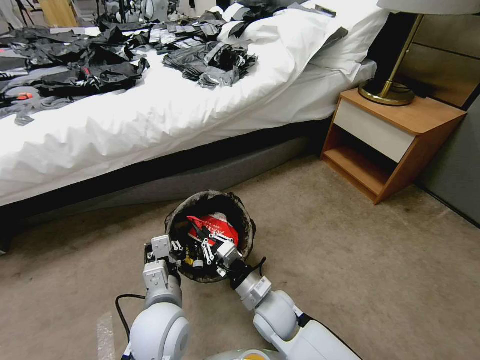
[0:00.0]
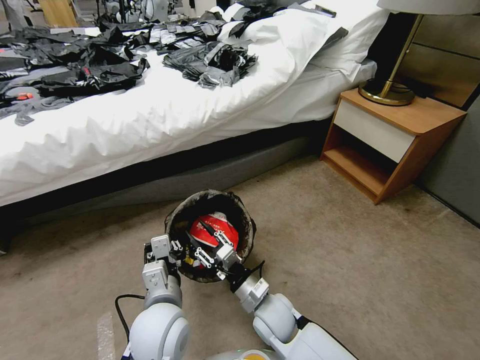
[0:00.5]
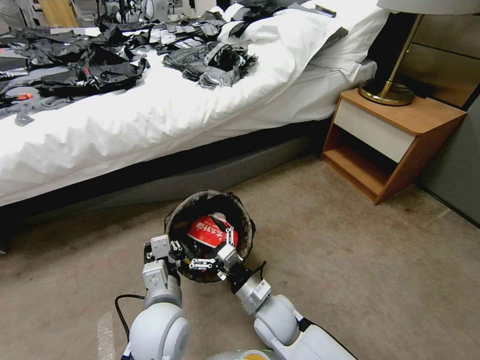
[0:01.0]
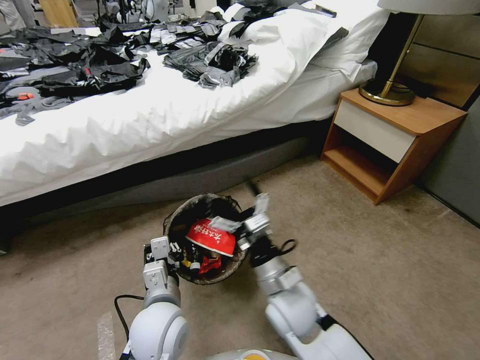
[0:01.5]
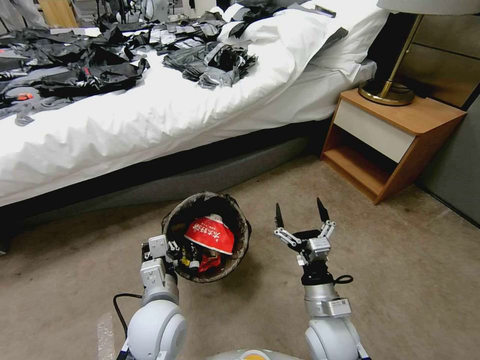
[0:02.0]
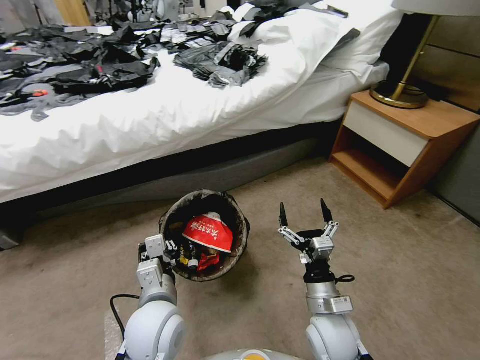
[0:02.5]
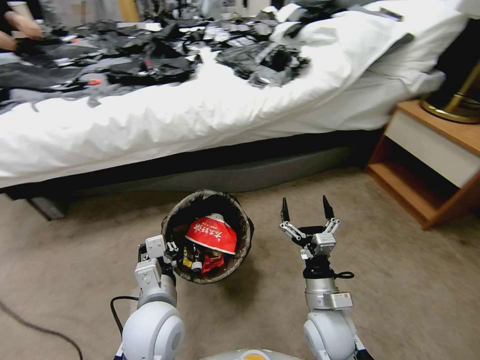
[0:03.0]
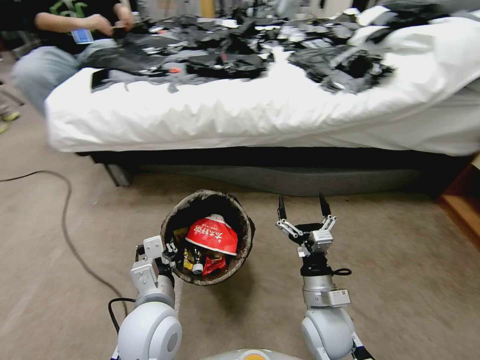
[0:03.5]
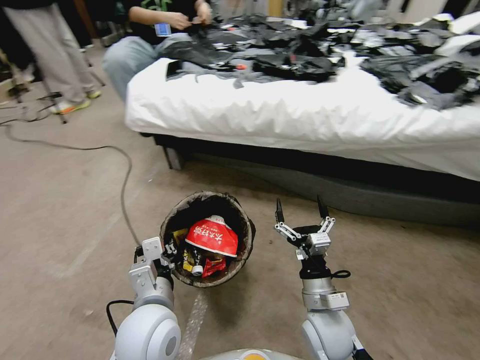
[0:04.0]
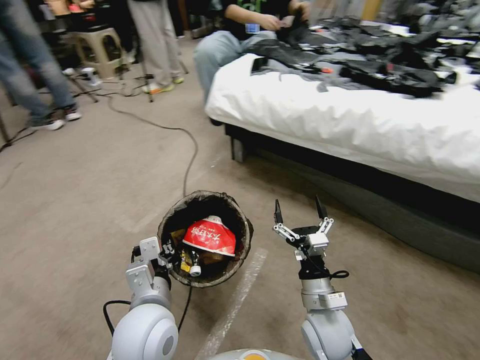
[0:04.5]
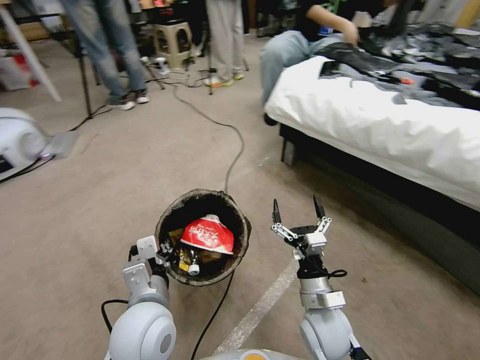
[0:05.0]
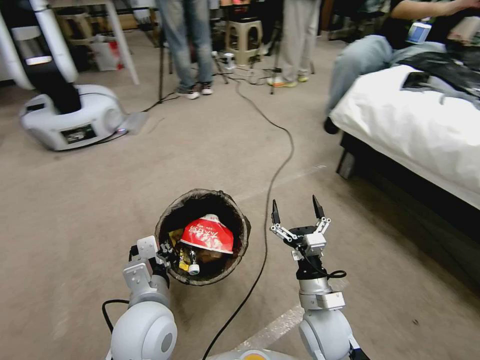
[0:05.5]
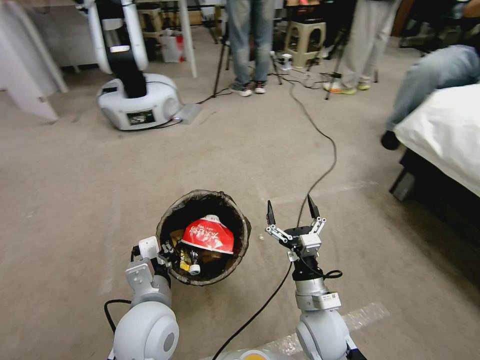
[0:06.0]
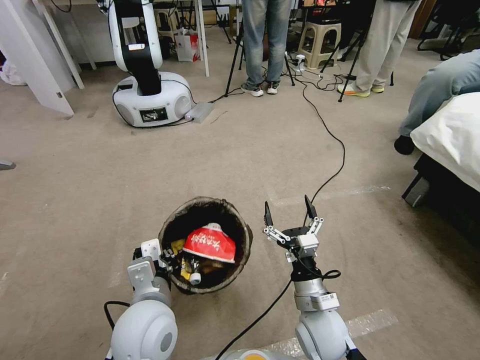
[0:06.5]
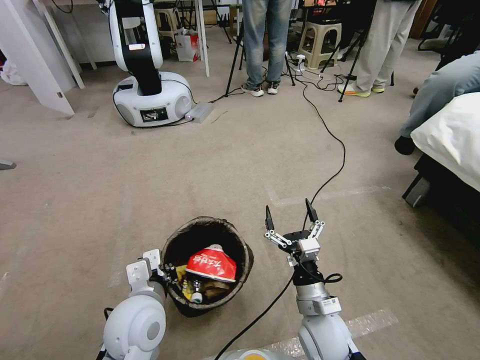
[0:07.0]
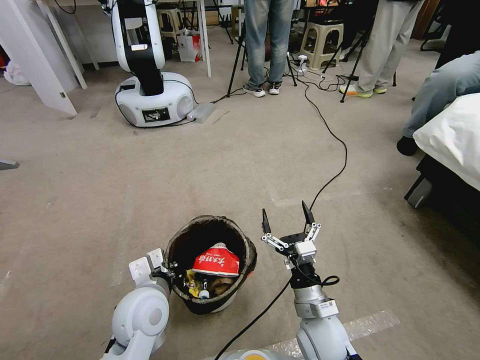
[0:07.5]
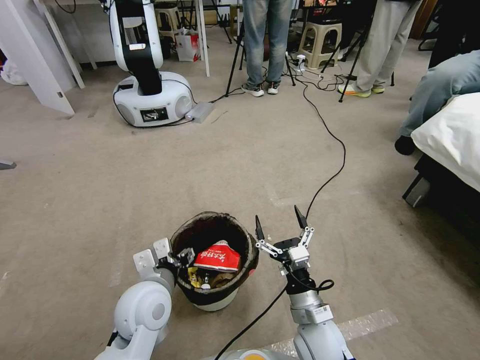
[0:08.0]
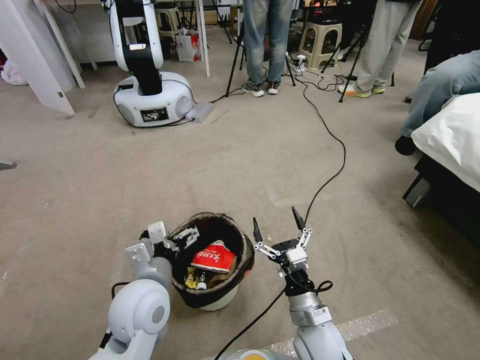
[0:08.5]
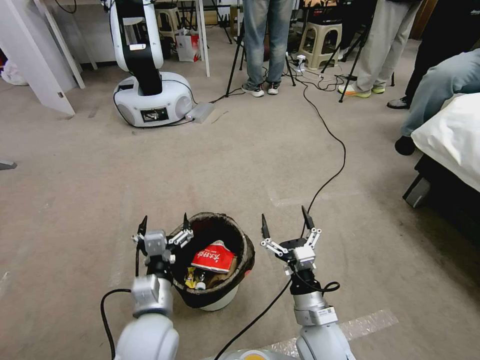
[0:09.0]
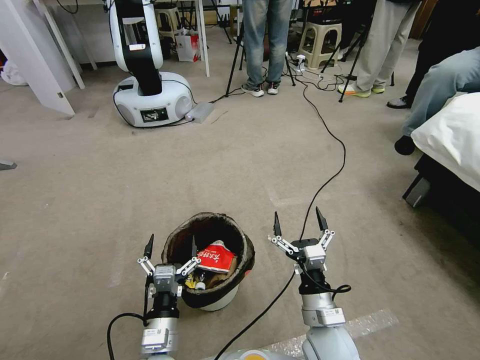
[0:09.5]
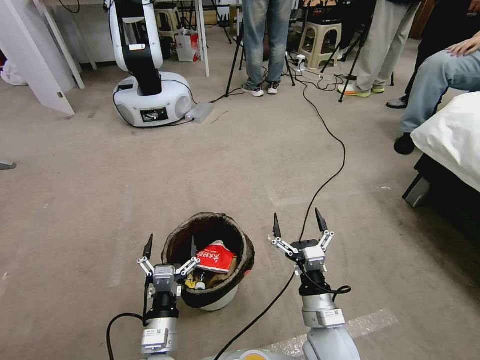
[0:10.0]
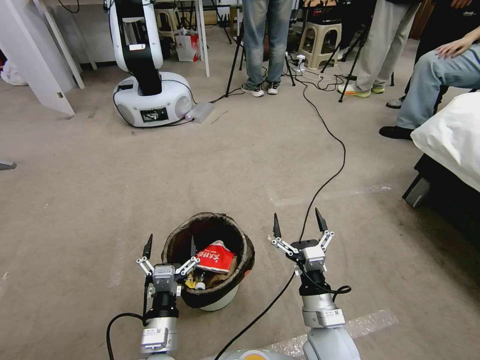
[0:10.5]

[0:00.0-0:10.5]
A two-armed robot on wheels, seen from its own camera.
Task of the whole recording: Pick up the trash bin, then pick up the garbage from the floor and place it into the trash bin.
0:00.0 to 0:02.0: The right gripper moves to the right, roughly 10 cm, travels upward and back again, some 10 cm each way, and opens up.
0:06.5 to 0:08.5: The left gripper opens.
0:08.5 to 0:10.5: The left gripper travels downward and backward by approximately 15 cm.

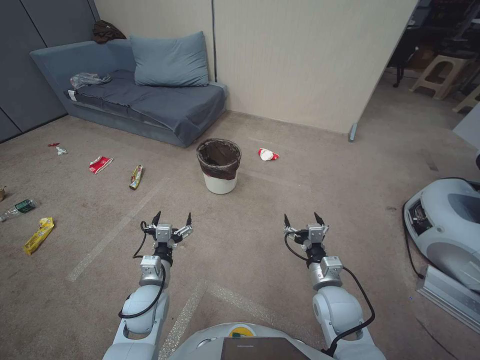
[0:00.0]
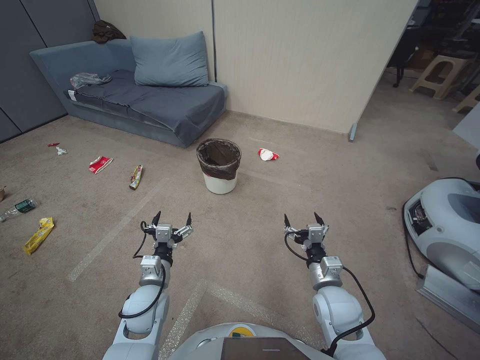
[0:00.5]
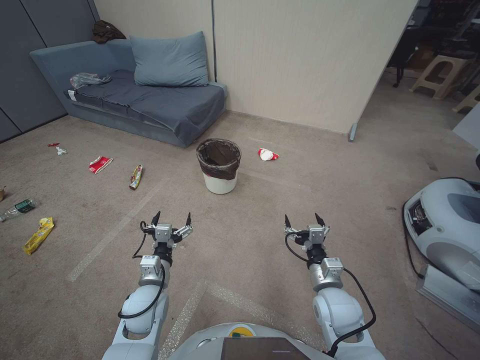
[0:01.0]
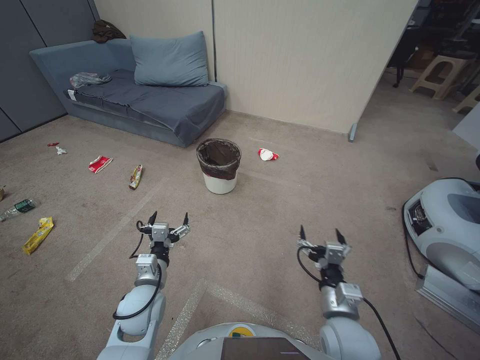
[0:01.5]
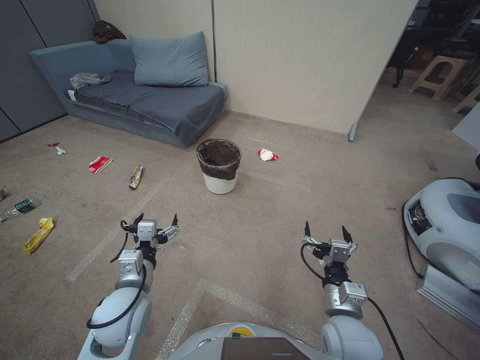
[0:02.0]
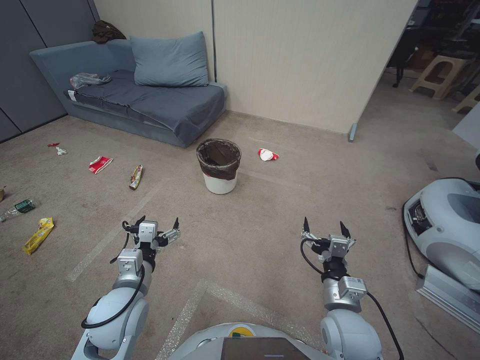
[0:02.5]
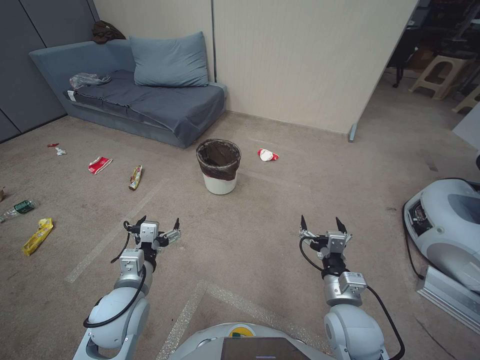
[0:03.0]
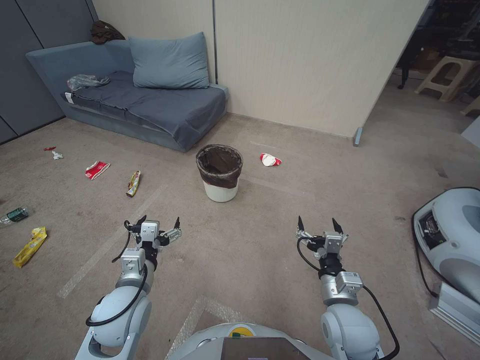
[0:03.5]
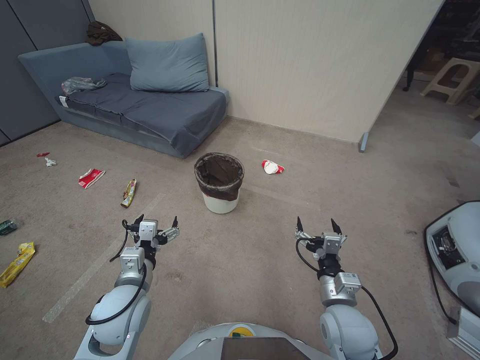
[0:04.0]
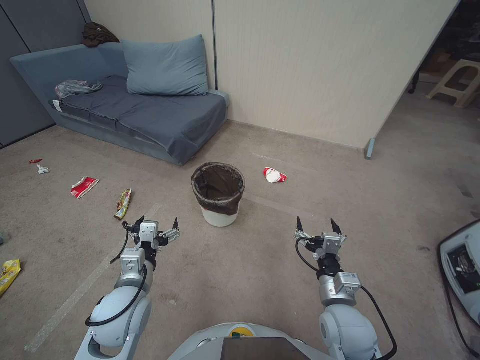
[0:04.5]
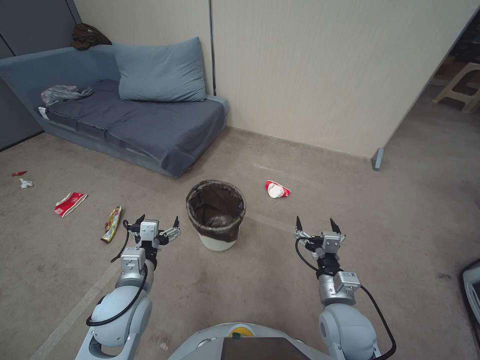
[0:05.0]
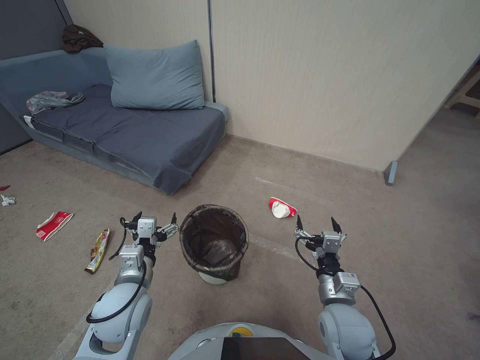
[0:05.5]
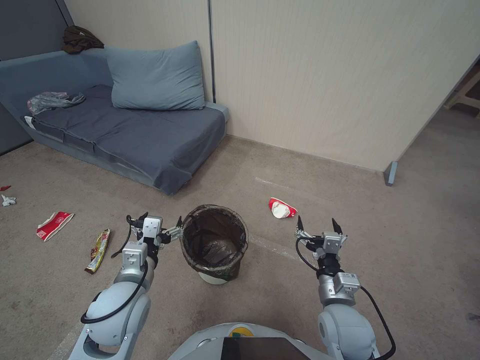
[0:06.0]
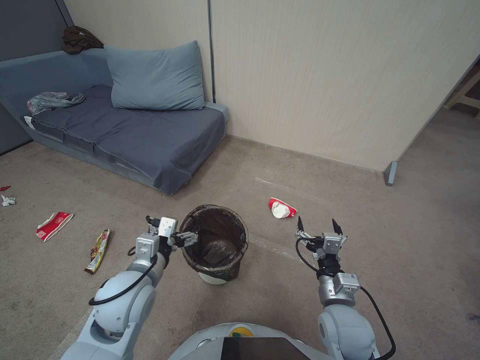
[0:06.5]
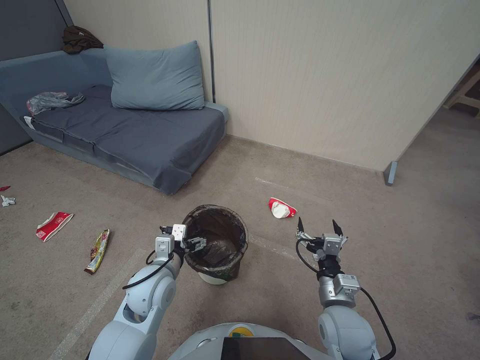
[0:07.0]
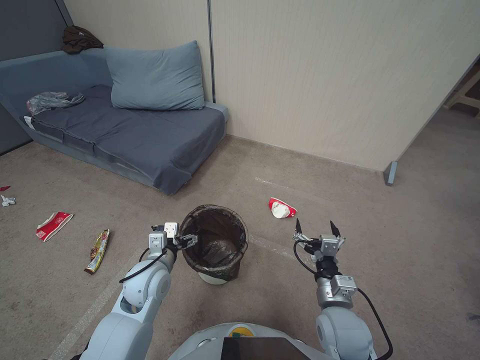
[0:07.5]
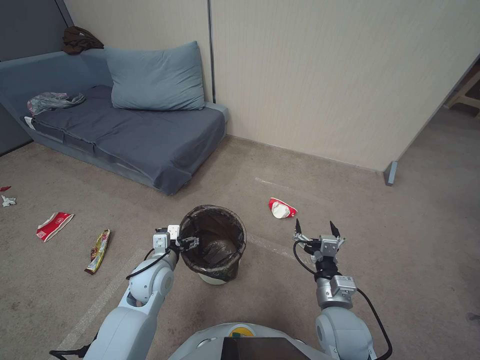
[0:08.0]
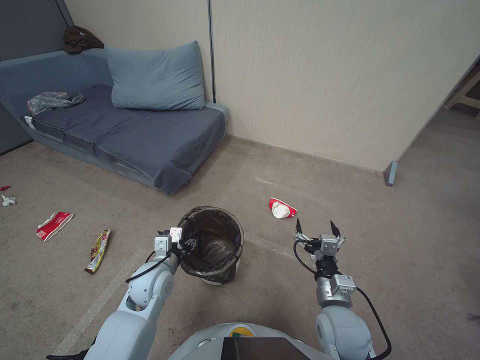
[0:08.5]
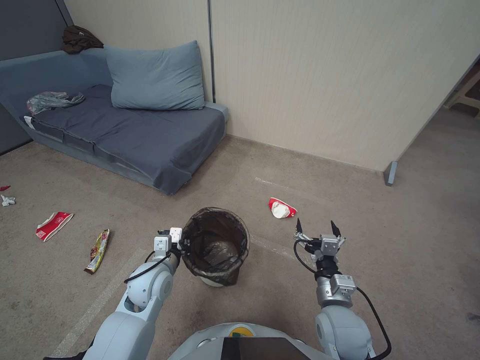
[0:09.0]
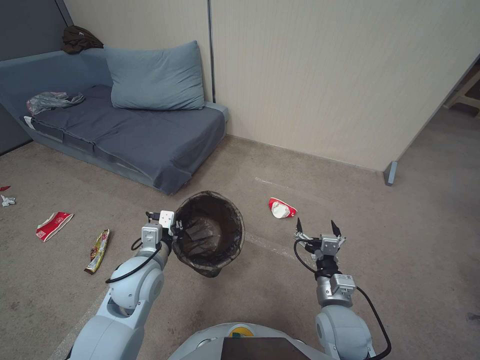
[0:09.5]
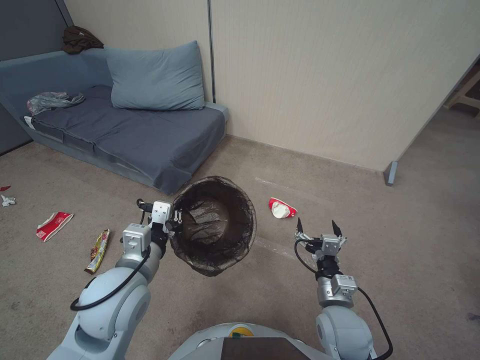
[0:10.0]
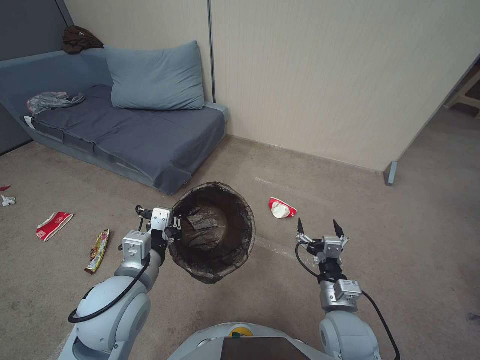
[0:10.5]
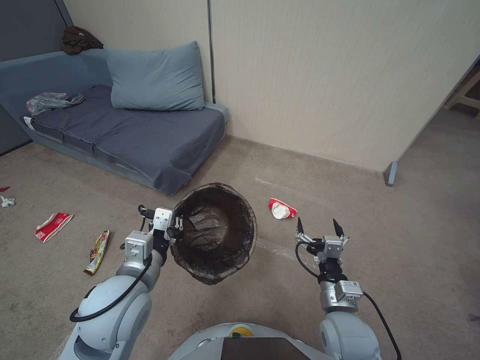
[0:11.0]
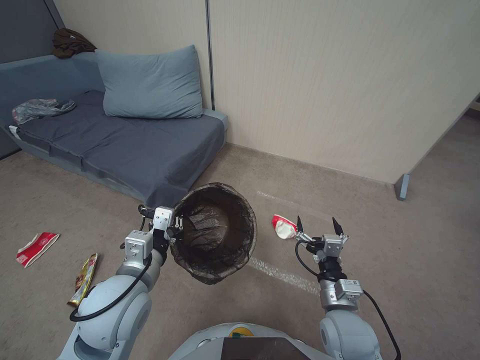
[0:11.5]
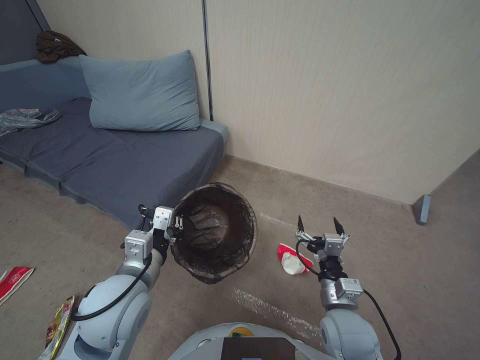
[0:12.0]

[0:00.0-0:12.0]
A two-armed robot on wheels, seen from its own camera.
Task of the whole recording: Pick up the trash bin, then pick up the garbage from the floor and place it into the trash bin.
0:02.0 to 0:04.0: The grippers make only small movements.
0:06.0 to 0:08.0: The left gripper is displaced forward and downward by some 10 cm.
0:08.0 to 0:10.0: The left gripper travels upward and backward by approximately 15 cm, and closes up.

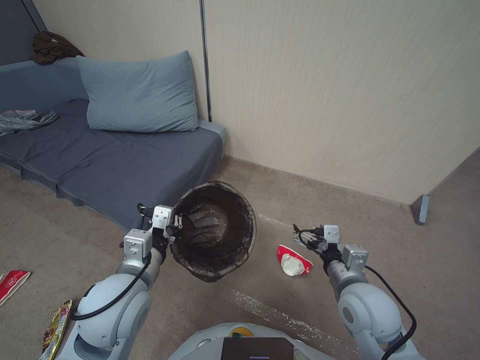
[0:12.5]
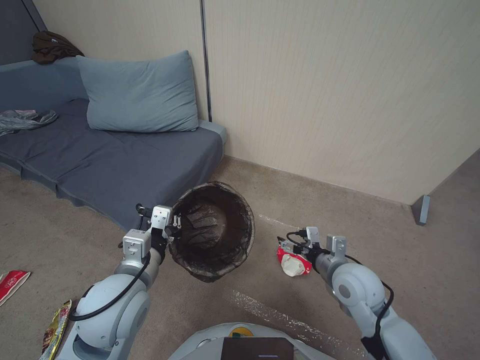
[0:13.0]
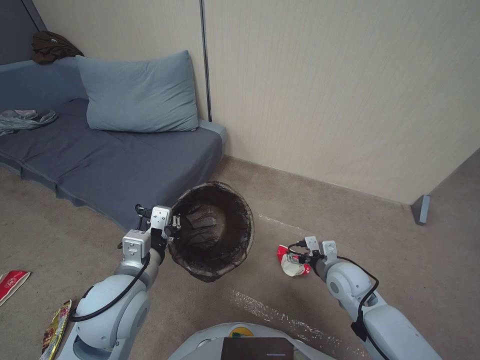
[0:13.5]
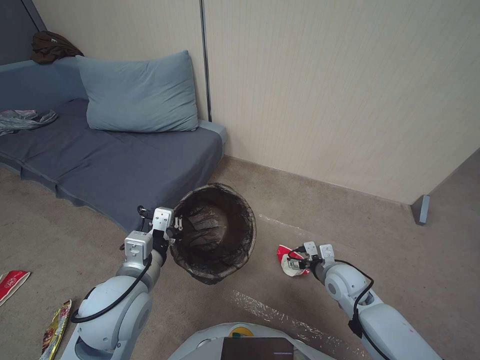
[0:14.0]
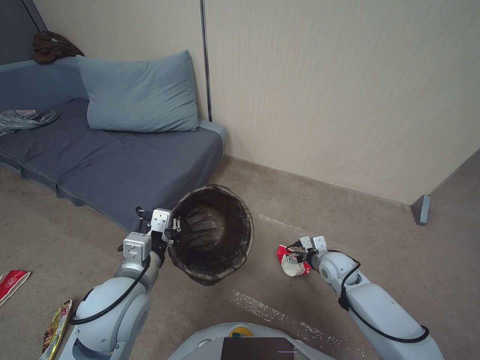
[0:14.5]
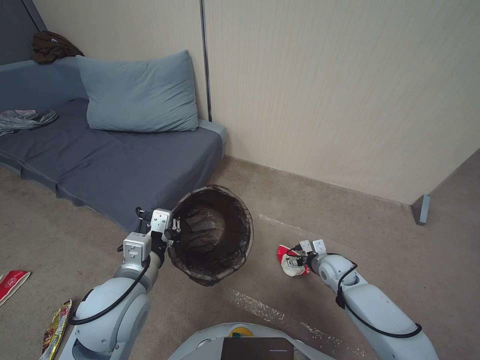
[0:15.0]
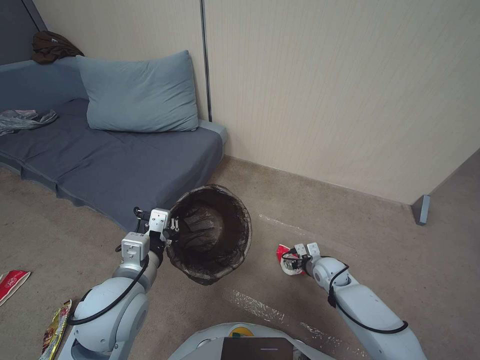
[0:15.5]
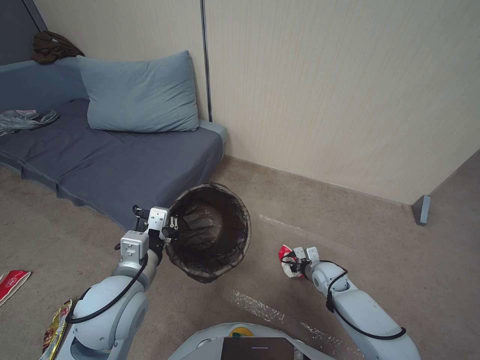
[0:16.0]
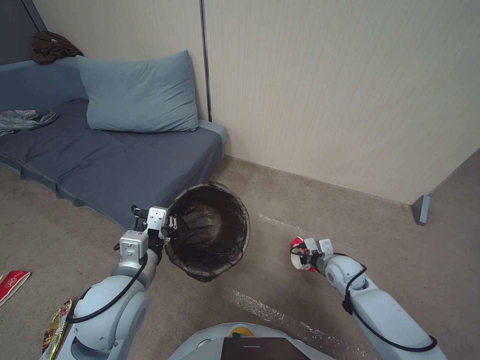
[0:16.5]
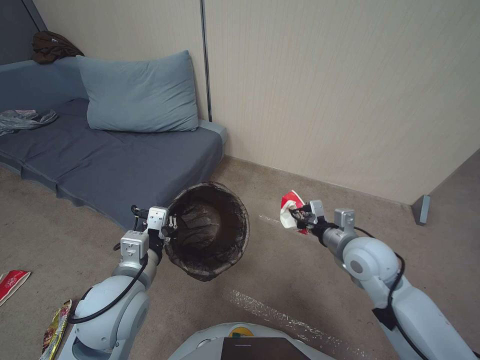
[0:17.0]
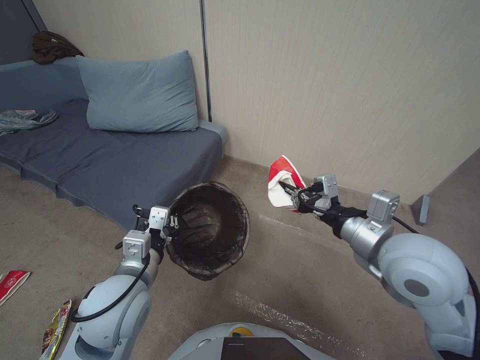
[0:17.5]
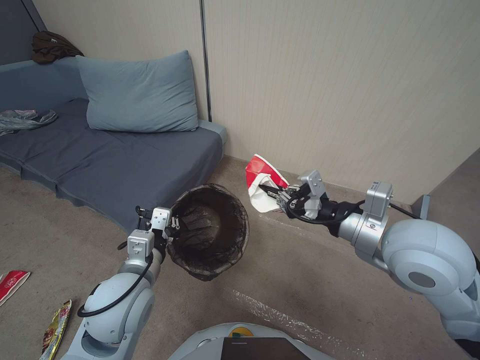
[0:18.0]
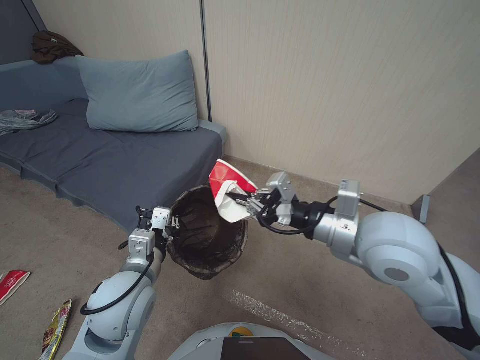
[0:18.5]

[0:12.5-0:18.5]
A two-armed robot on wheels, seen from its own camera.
Task of the whole recording: Pick up the trash bin, then pick up the garbage from the floor and place it into the trash bin.
0:12.5 to 0:14.5: The right gripper is displaced downward and forward by some 20 cm.
0:14.5 to 0:16.5: The right gripper closes up.
0:16.5 to 0:18.5: The right gripper is displaced upward by some 35 cm.
